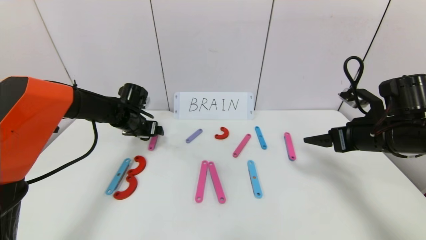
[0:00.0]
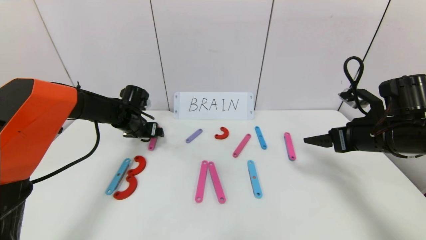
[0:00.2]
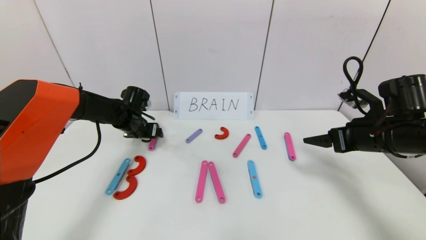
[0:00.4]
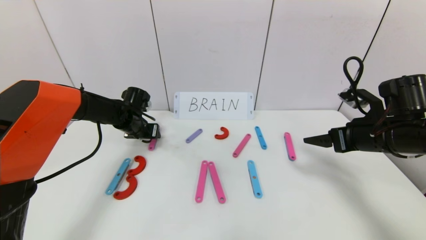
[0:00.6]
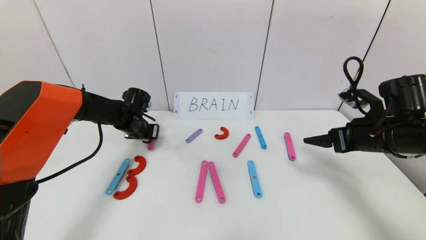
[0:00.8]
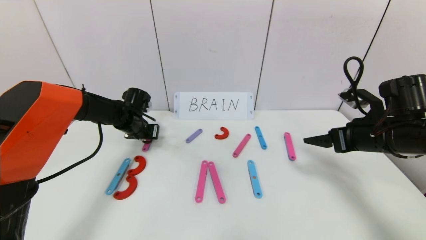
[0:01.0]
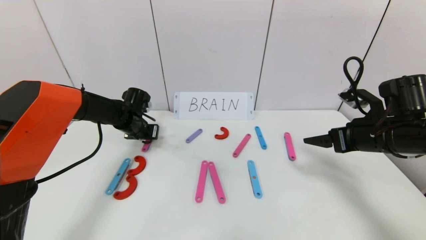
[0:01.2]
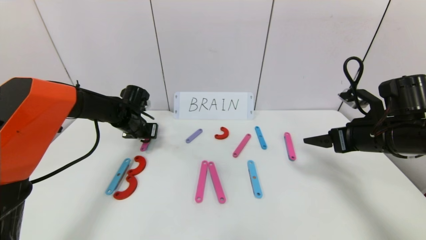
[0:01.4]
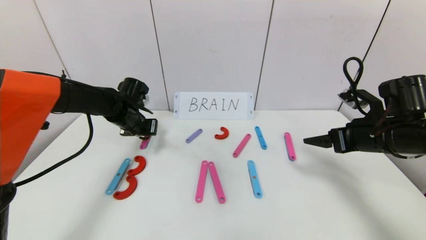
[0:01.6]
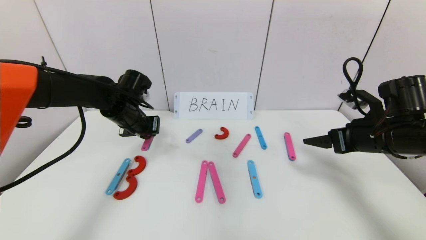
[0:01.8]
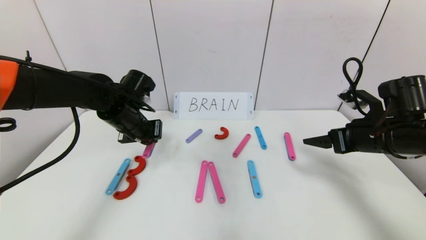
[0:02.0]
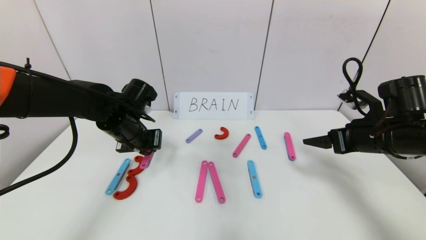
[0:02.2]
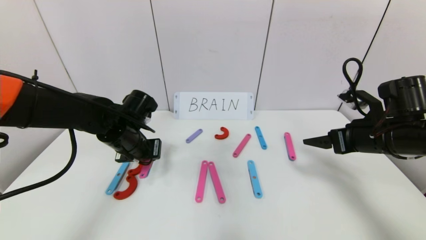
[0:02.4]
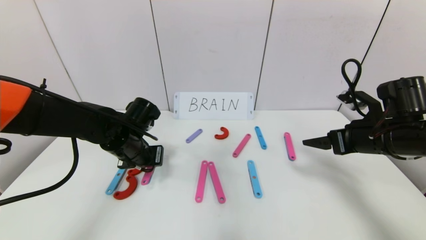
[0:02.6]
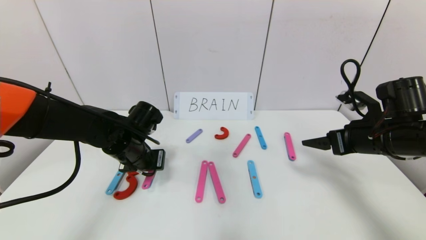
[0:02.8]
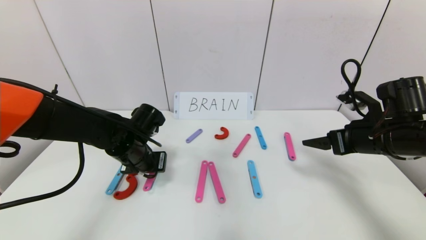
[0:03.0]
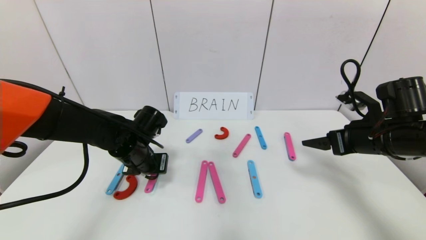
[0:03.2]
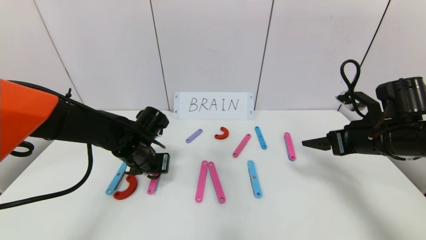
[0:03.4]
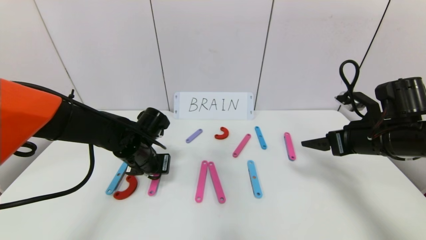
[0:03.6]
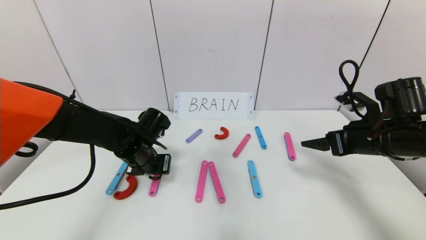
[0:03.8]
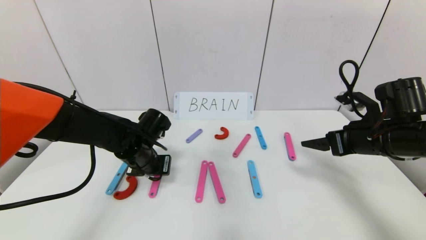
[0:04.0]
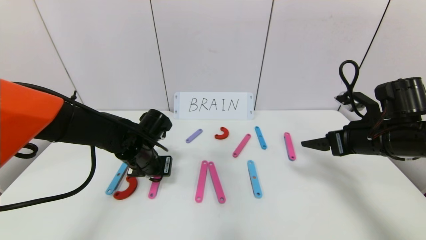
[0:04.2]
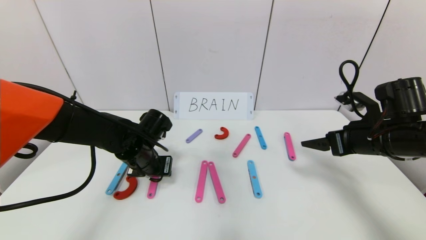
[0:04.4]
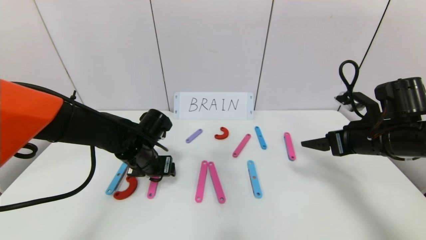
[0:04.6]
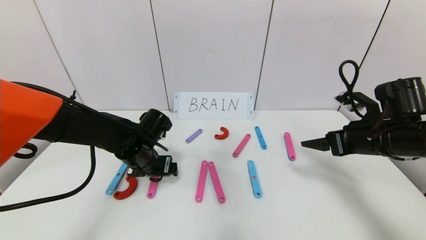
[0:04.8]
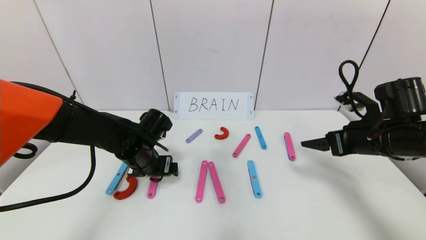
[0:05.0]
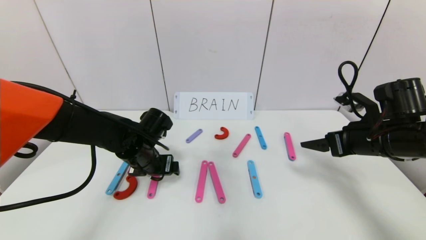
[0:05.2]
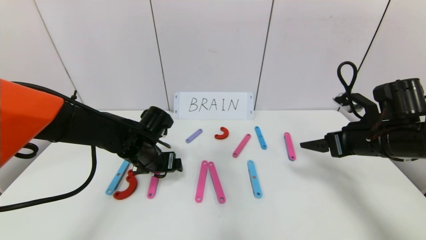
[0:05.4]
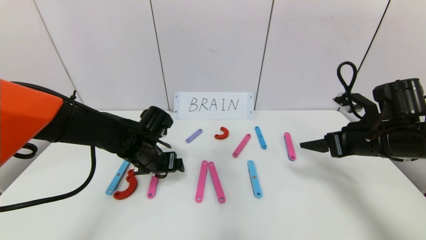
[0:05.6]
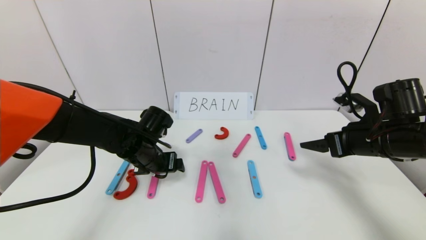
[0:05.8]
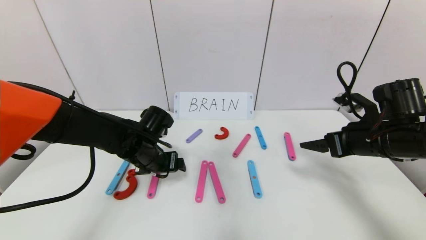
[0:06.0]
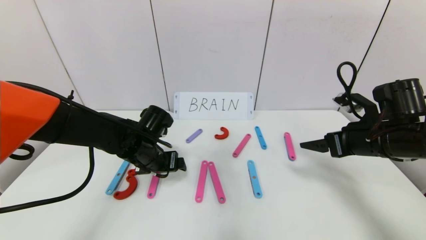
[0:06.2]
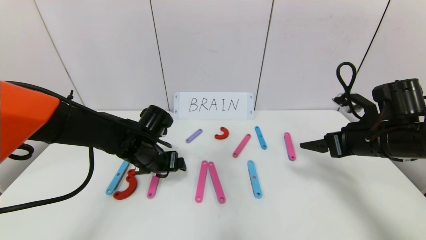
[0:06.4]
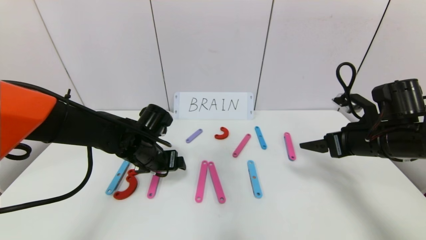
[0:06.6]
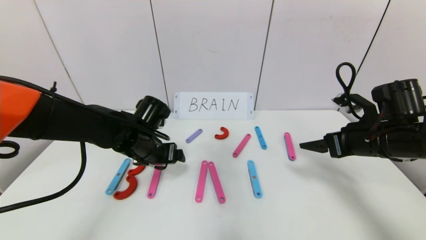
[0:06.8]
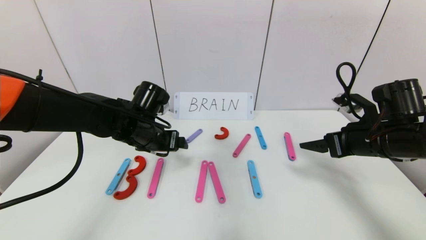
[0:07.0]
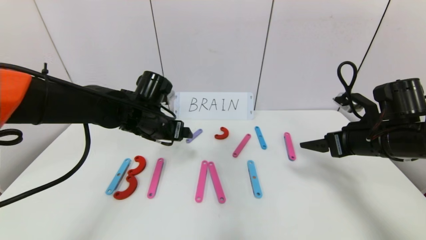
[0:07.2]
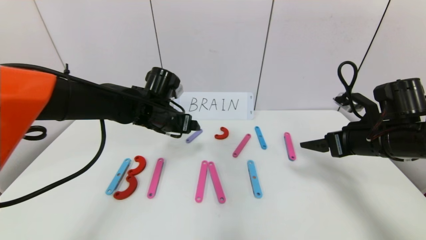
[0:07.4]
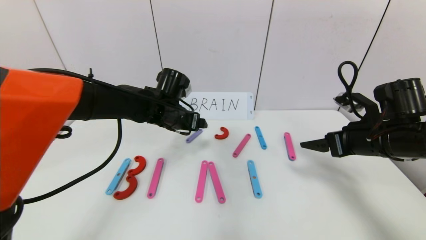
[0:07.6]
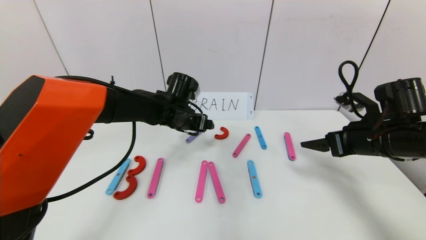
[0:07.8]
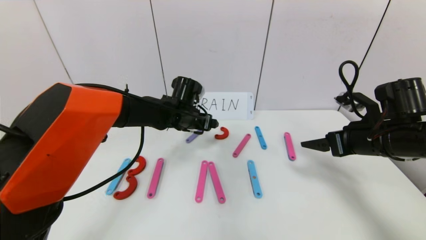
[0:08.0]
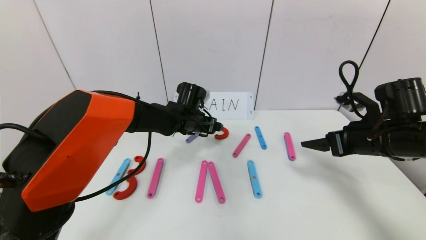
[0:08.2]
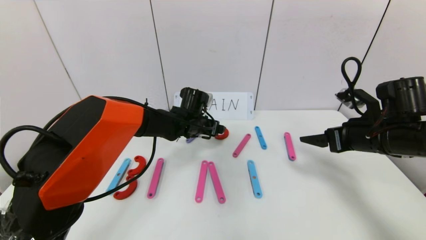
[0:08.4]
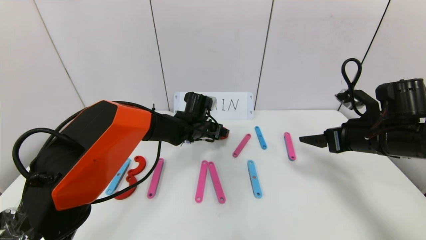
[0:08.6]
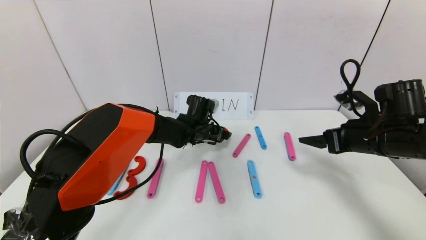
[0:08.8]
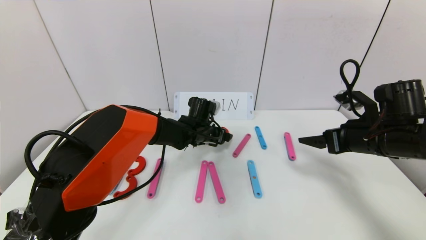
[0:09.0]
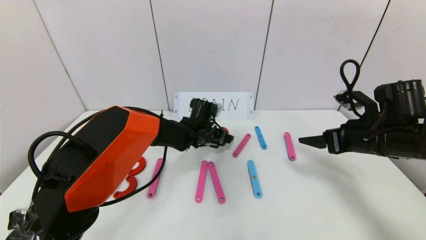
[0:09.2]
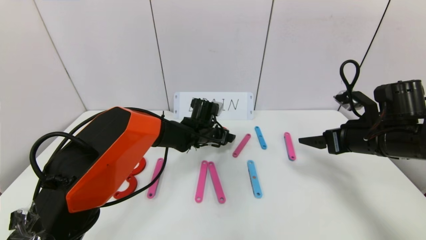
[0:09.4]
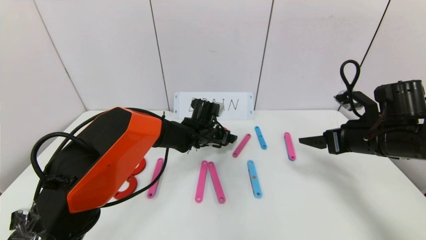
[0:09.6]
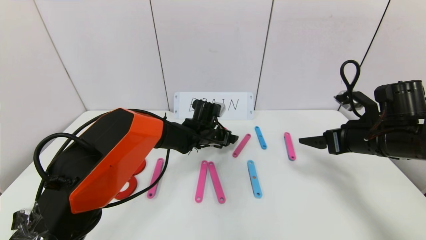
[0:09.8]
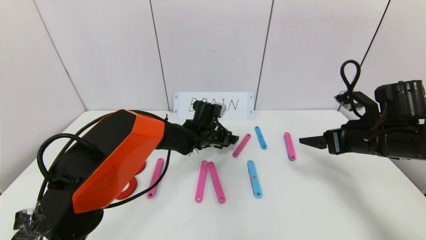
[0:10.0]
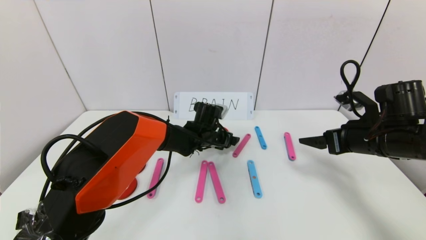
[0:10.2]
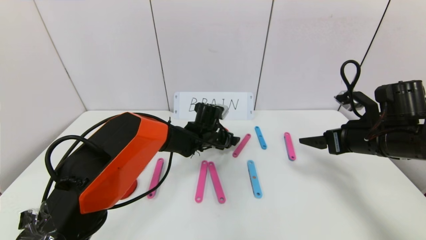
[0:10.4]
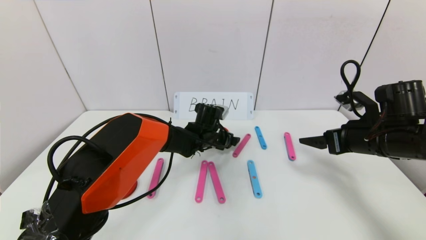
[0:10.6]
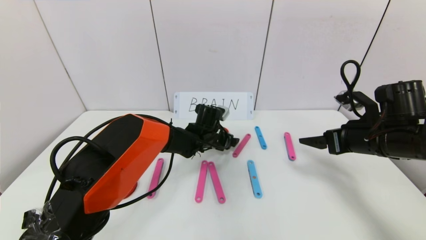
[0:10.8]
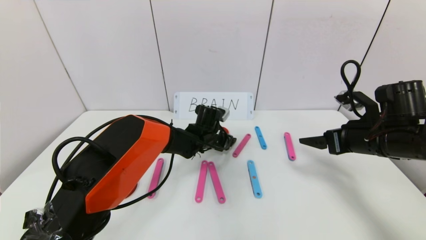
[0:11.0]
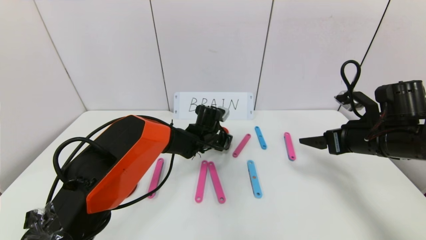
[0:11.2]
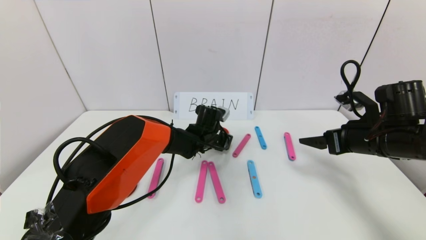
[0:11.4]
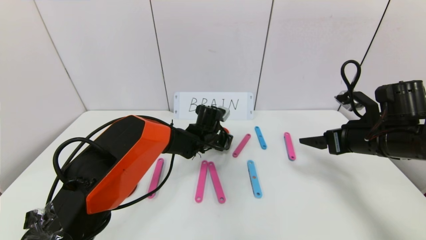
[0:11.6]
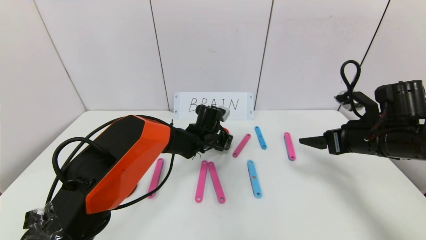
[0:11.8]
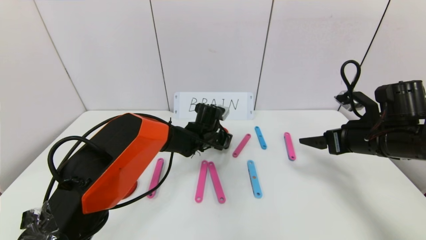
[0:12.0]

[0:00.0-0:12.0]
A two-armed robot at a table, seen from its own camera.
Task of the whole recording: rearrange the word baai as brain.
0:00.0 to 0:01.6: The left gripper closes its fingers.
0:01.6 to 0:03.0: The left gripper travels backward by about 10 cm.
0:03.0 to 0:04.4: The left gripper opens up.
0:04.4 to 0:06.0: The left gripper opens.
0:06.0 to 0:07.6: The left gripper shifts approximately 10 cm forward, upward and to the right.
0:07.6 to 0:09.0: The left gripper heads downward and to the right, covering roughly 10 cm.
0:09.0 to 0:10.4: The grippers stay close to where they were, moving slightly.
0:10.4 to 0:12.0: The left gripper closes its fingers.

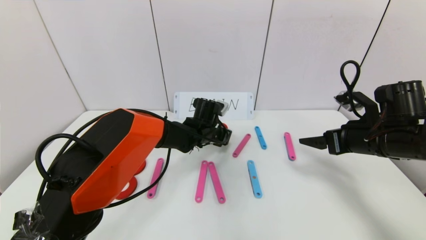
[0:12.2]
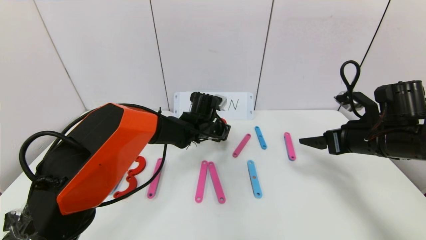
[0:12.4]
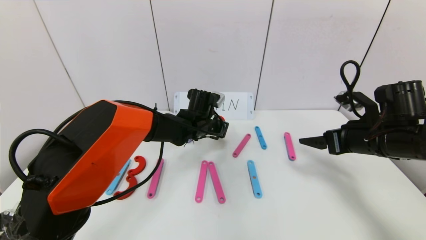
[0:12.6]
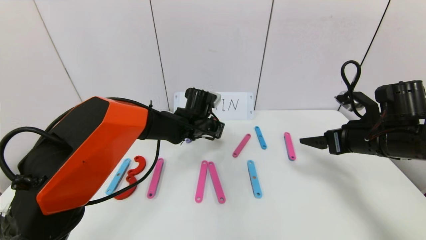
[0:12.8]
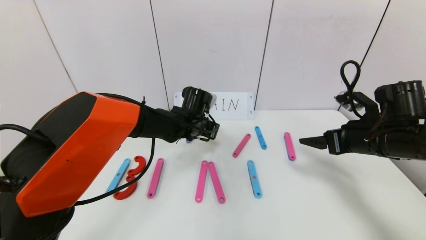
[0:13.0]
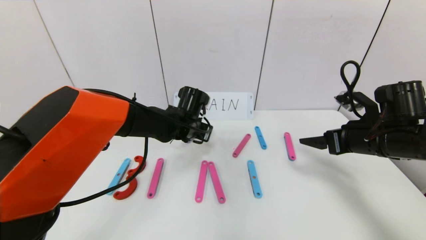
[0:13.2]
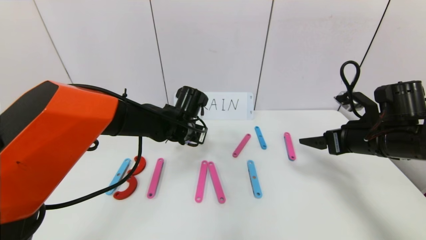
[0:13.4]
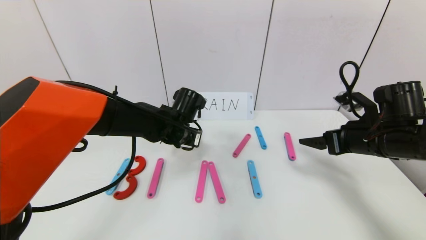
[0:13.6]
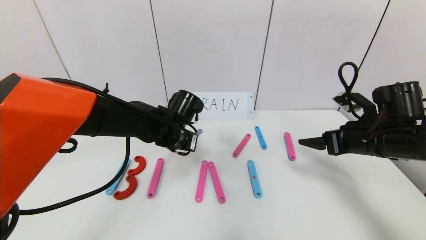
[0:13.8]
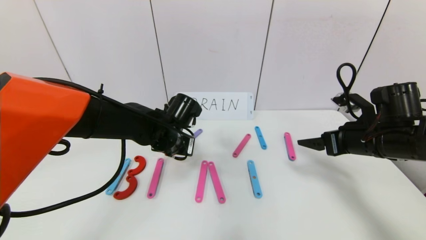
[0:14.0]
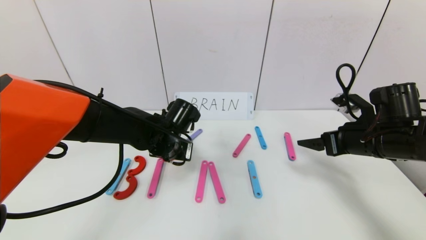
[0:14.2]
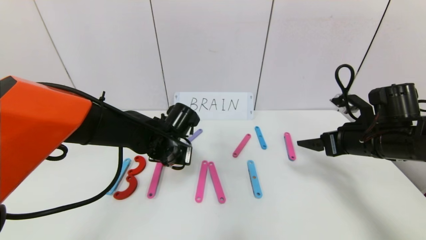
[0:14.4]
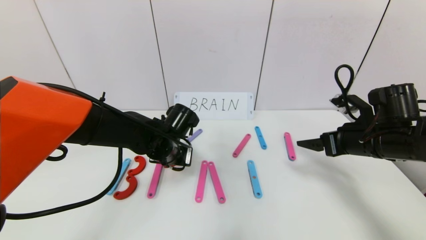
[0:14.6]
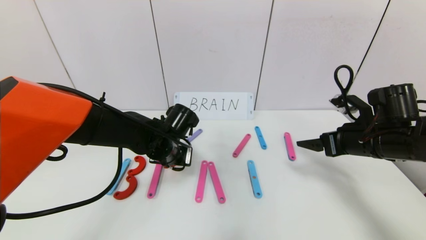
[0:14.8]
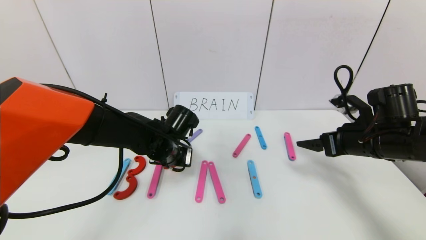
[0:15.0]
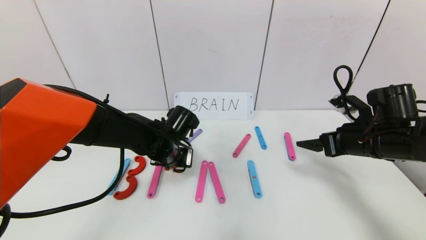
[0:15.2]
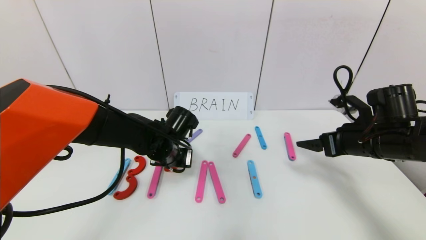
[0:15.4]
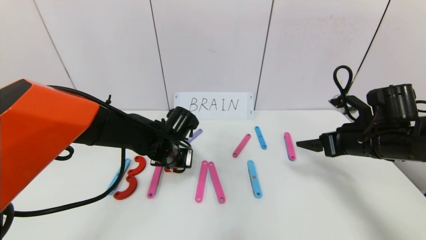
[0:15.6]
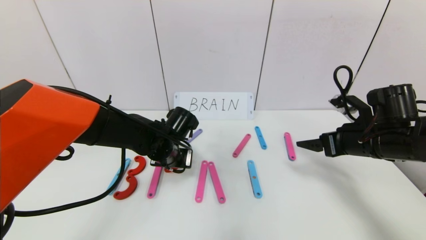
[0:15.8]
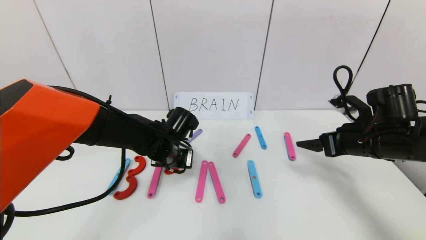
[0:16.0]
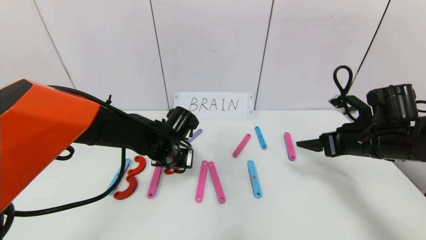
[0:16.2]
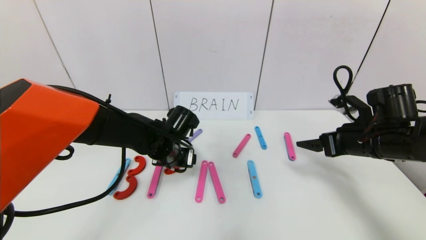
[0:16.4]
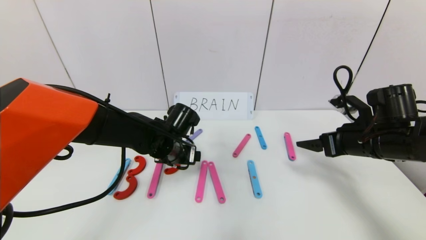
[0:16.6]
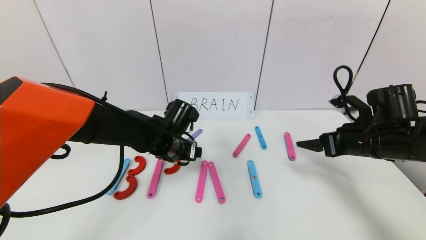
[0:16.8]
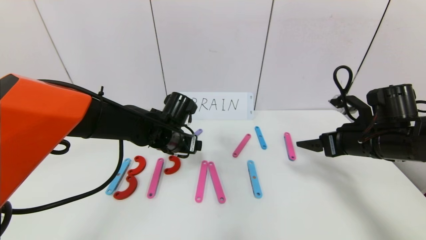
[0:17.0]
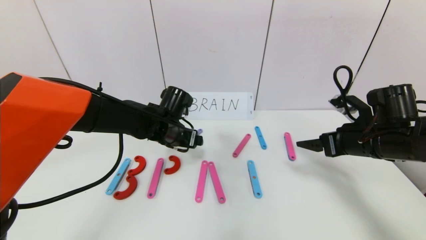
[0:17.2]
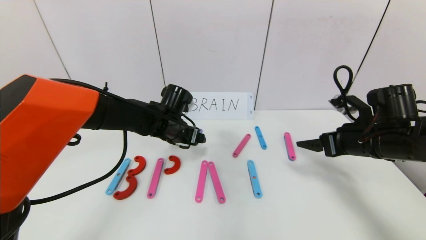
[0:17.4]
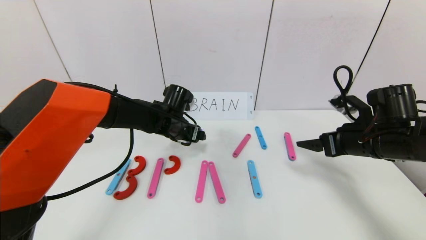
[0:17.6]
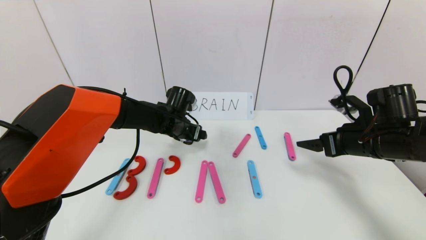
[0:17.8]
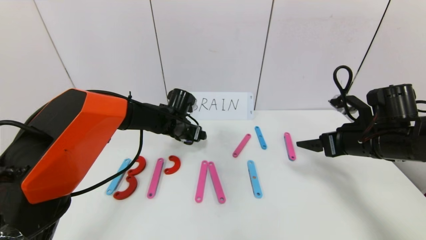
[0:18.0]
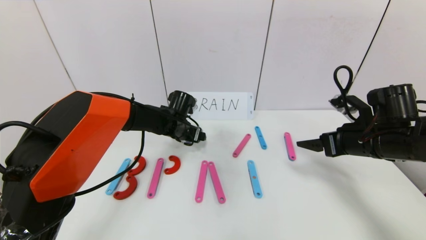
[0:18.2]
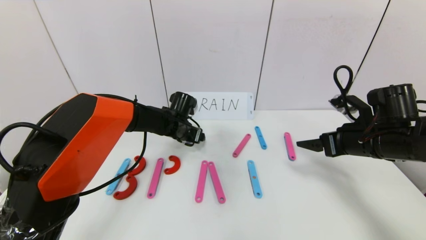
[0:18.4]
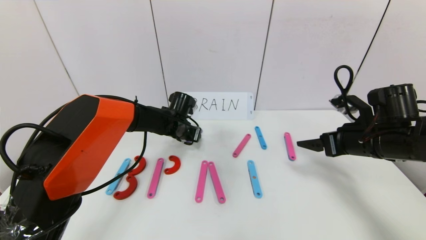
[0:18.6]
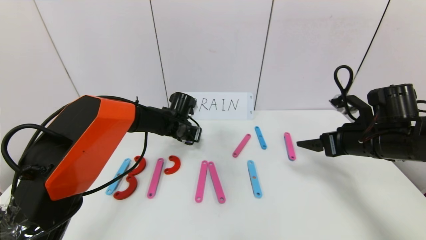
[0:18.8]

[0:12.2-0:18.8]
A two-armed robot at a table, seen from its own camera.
Task of the whole recording: rearrange the word baai as brain.
0:12.2 to 0:13.8: The left gripper shifts approximately 10 cm backward and to the left.
0:13.8 to 0:15.4: There are only small adjustments of the grippers.
0:15.4 to 0:17.2: The left gripper opens up.
0:17.2 to 0:18.8: The left gripper goes approximately 10 cm forward and downward, and closes.
